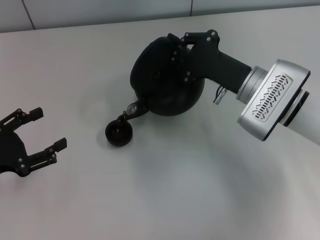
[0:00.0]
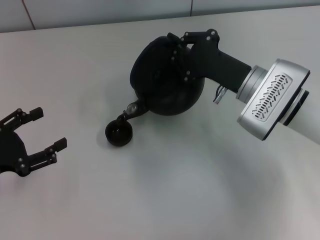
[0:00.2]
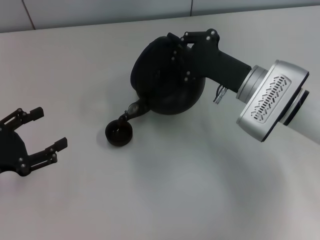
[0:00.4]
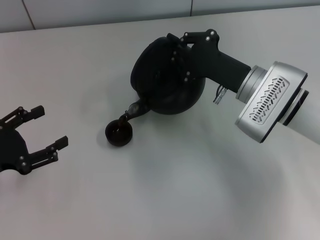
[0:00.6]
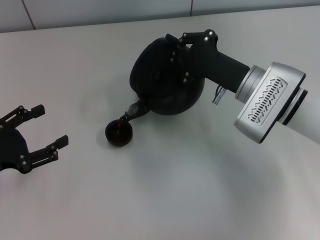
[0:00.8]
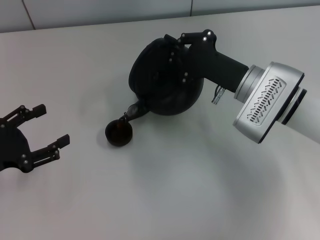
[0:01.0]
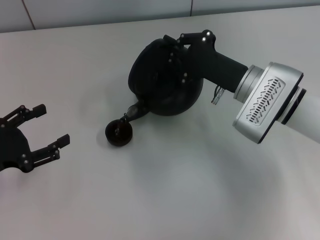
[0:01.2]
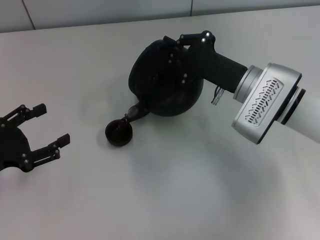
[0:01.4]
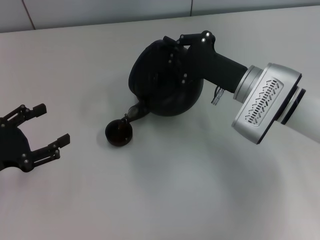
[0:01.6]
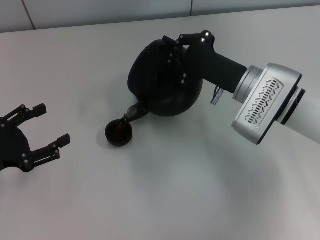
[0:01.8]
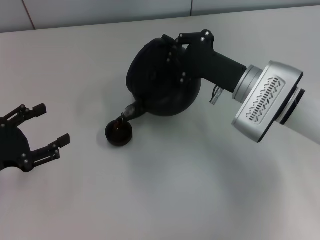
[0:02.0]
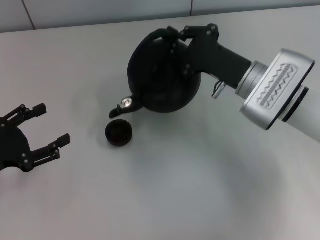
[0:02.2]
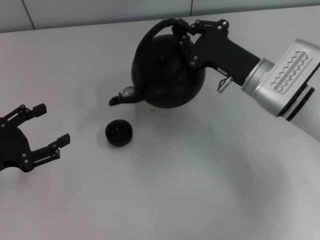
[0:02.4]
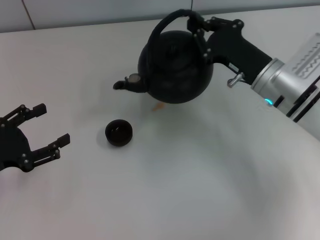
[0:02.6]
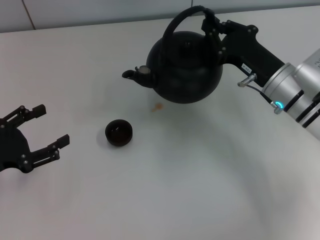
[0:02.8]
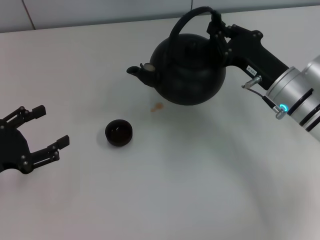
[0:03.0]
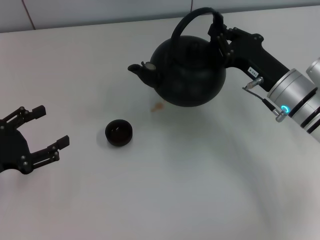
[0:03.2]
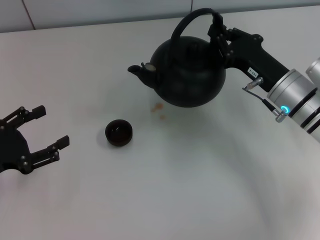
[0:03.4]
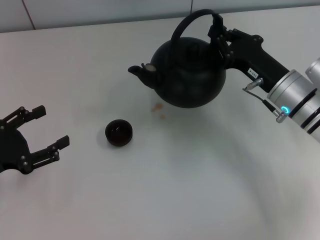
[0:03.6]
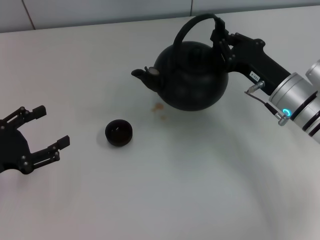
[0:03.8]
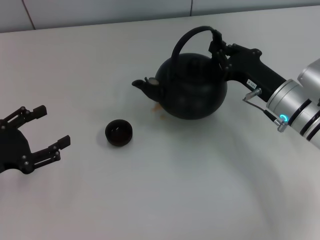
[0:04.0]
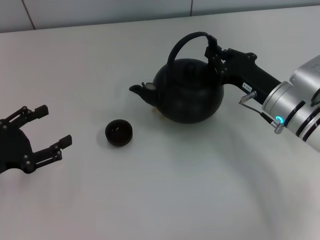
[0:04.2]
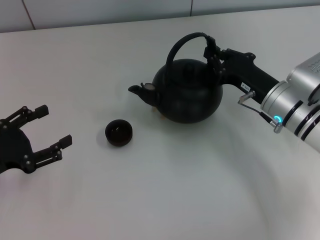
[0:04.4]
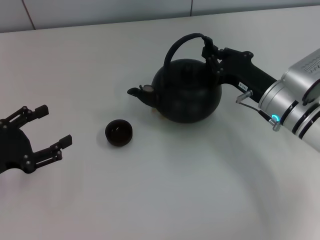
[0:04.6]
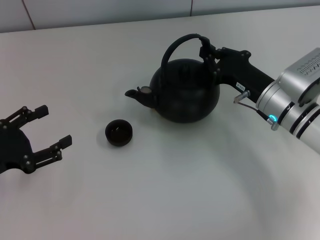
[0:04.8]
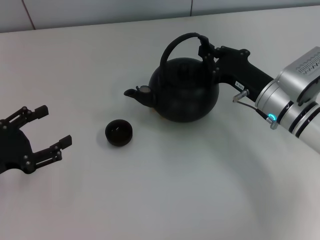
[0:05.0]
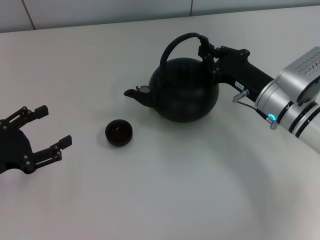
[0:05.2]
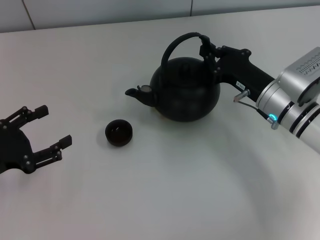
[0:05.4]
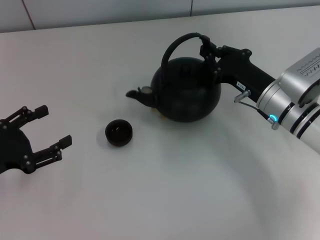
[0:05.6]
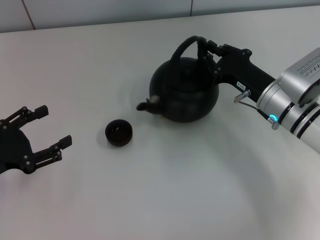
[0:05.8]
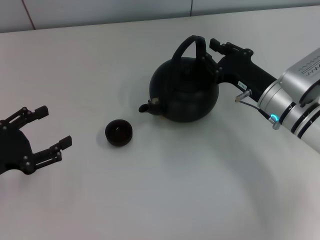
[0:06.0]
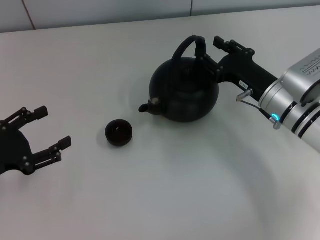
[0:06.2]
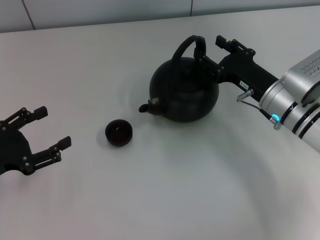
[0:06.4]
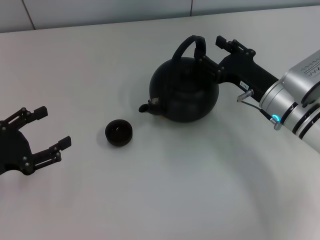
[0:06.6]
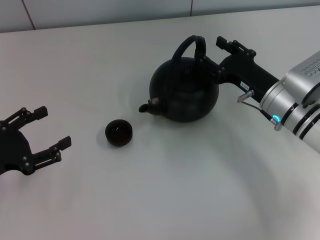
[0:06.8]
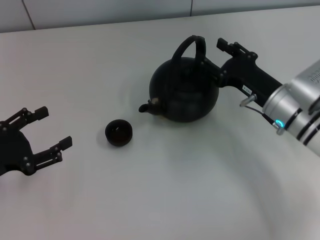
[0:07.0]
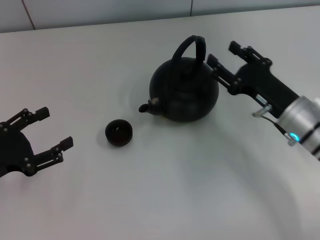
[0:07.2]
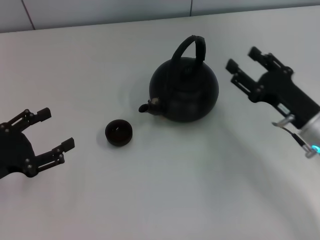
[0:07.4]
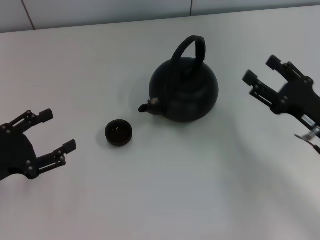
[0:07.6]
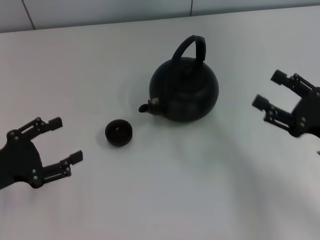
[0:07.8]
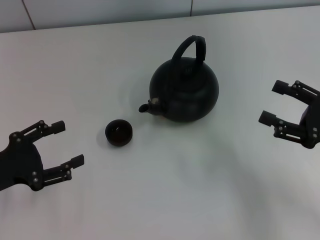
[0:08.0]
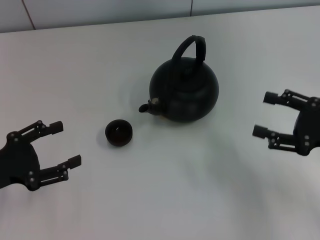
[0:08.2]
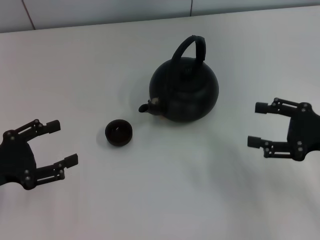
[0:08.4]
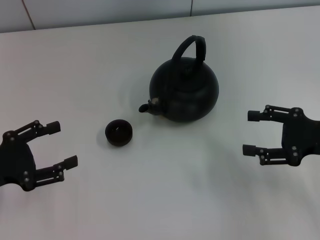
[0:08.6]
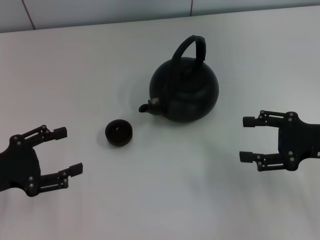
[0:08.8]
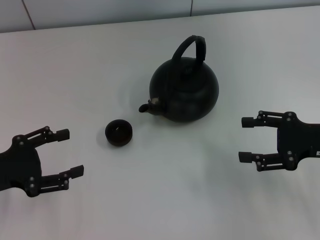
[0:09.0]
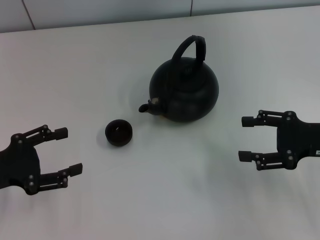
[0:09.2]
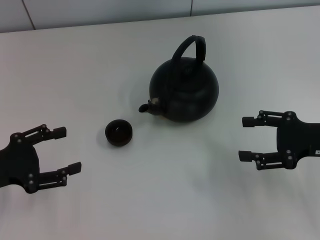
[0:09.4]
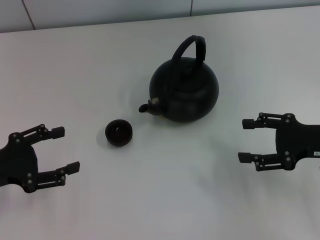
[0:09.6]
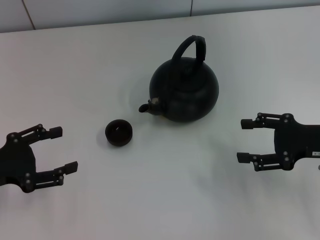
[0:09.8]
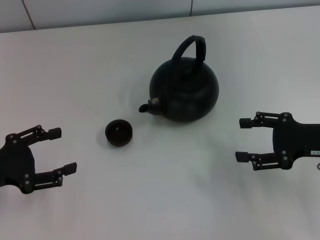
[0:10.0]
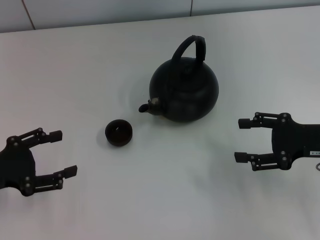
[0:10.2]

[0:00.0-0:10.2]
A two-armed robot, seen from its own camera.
Task of the whole recording: Grasp the handle of the teapot with one hand and pour tea into the teacup.
Step, 0:02.4 to 0:07.2: Put down the teapot with the right gripper.
0:00.0 to 0:01.4: The grippers stay close to where they were, moving slightly.
0:03.0 to 0:05.8: There are only small adjustments of the grippers.
0:05.8 to 0:07.2: The right gripper opens.
0:07.2 to 0:08.8: The right gripper travels to the right by roughly 10 cm.
0:08.8 to 0:10.2: There are only small adjustments of the grippers.
